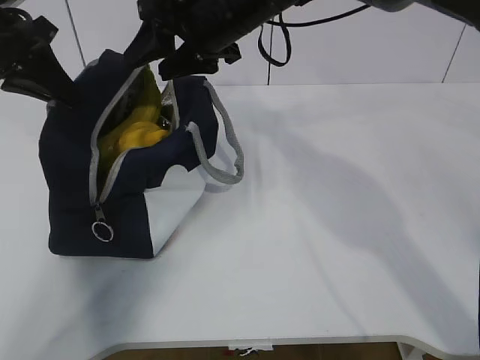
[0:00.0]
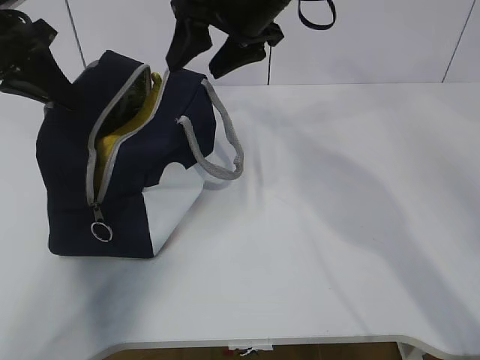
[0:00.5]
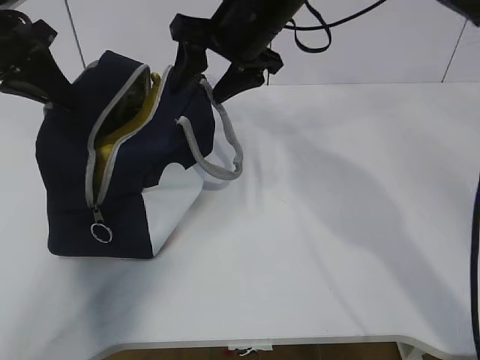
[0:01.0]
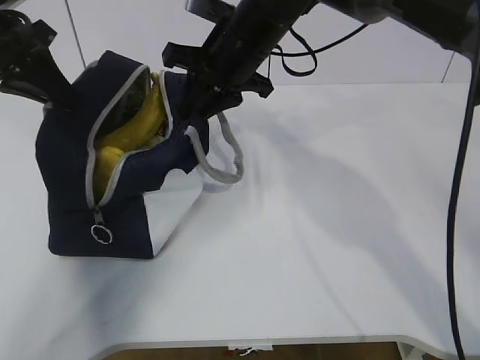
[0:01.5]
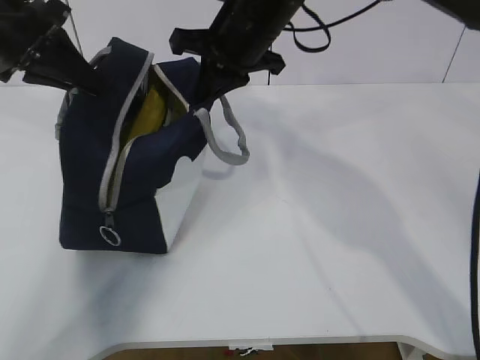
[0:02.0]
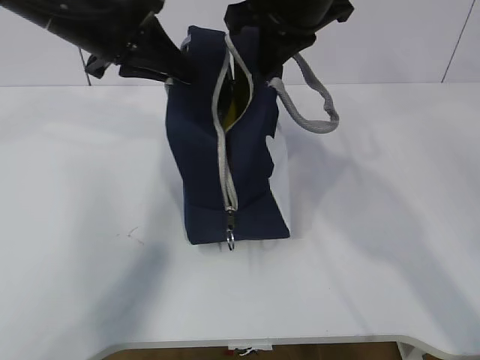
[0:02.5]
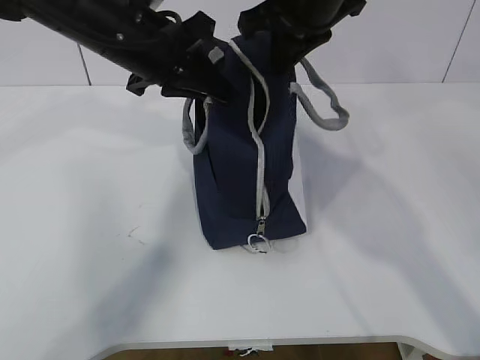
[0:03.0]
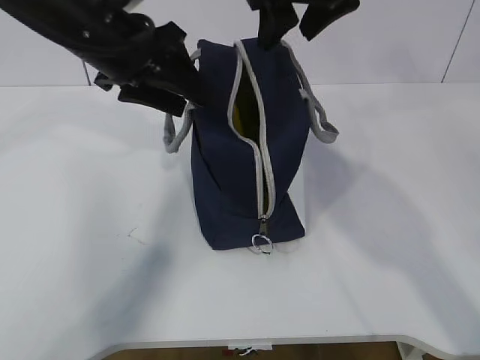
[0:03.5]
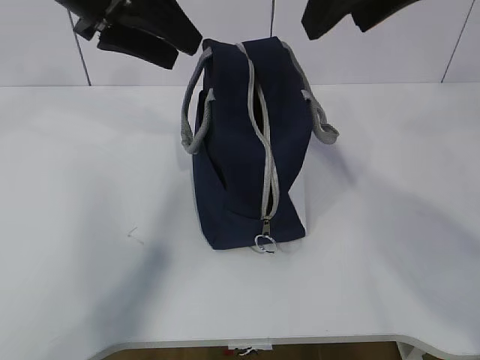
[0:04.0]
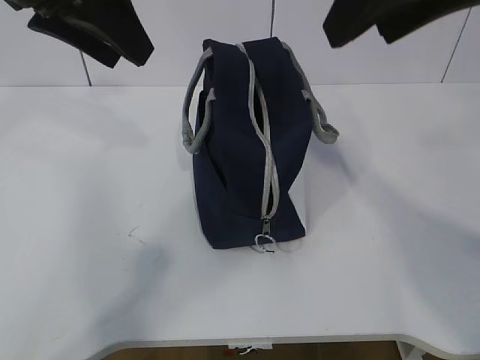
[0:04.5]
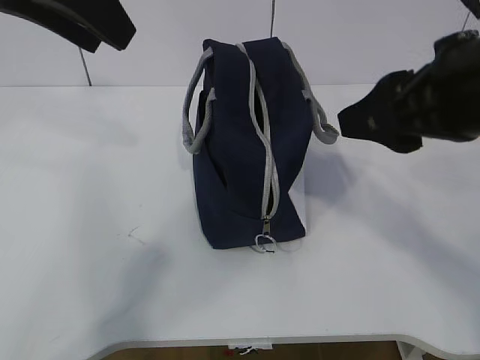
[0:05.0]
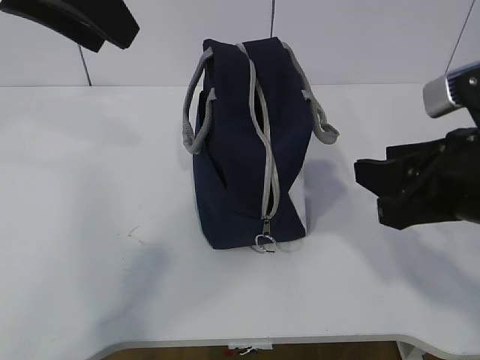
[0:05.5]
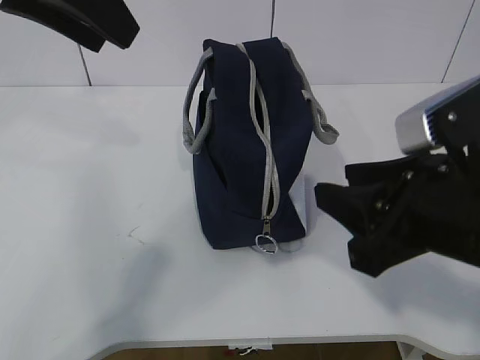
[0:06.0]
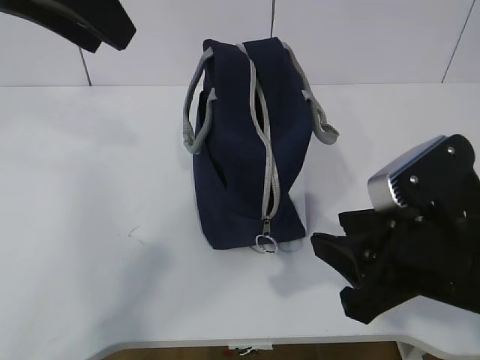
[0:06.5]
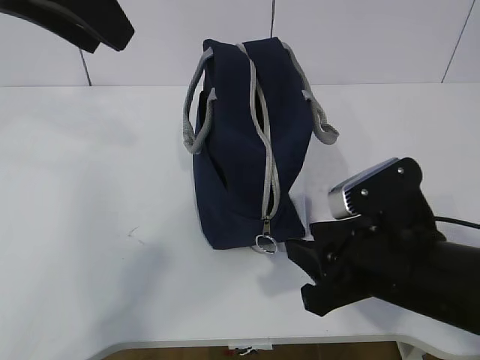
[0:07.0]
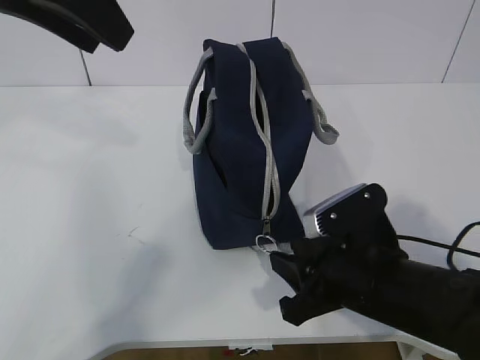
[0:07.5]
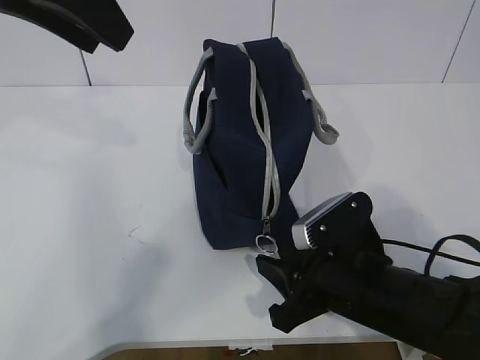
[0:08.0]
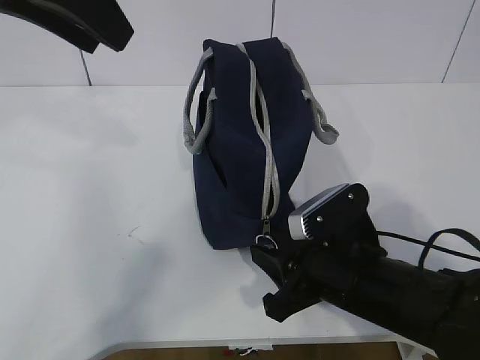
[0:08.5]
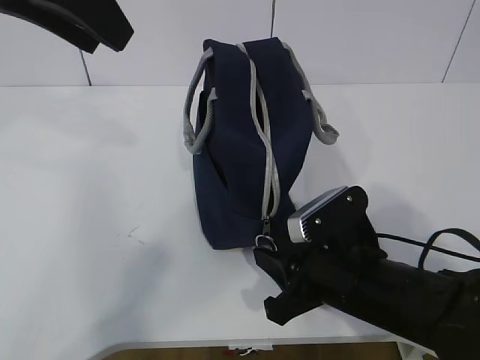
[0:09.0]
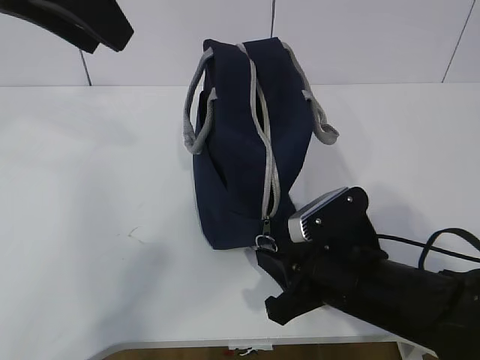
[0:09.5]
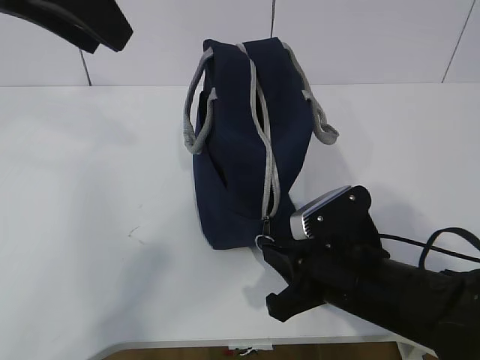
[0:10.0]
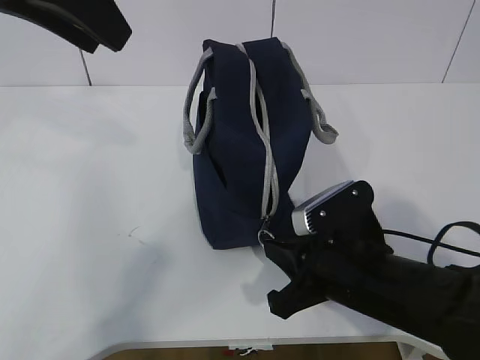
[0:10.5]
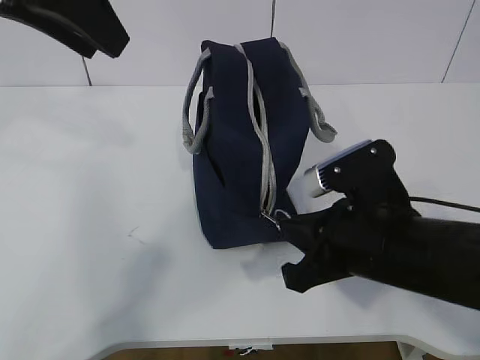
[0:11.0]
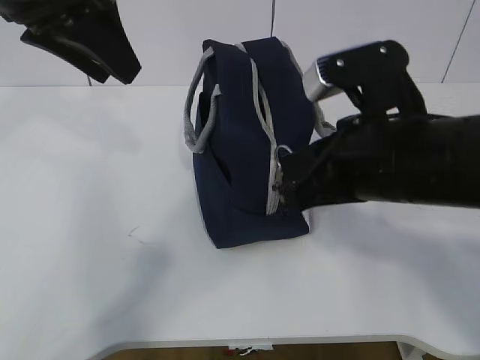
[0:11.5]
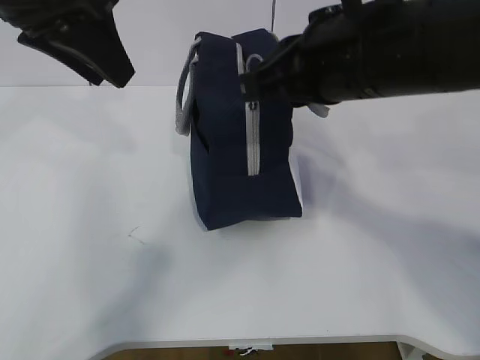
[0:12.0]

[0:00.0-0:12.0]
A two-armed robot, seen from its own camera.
Step, 0:00.0 to 0:09.0: Grab the lunch bag with your left hand.
0:00.0 to 0:02.0: The right gripper closes up.
0:02.0 to 0:04.0: The left gripper is displaced to the right by about 10 cm, and opens, while the right gripper heads backward, upward and to the right, covering roughly 20 cm, and opens up.
0:04.0 to 0:06.0: The left gripper shifts some 10 cm backward and upward. The right gripper shifts approximately 20 cm downward and backward.
0:06.0 to 0:08.0: The right gripper goes roughly 15 cm downward.
0:08.0 to 0:10.0: The right gripper closes up.
0:10.0 to 0:12.0: The right gripper is displaced upward by roughly 20 cm.

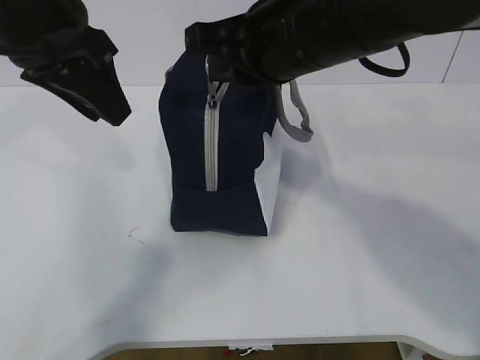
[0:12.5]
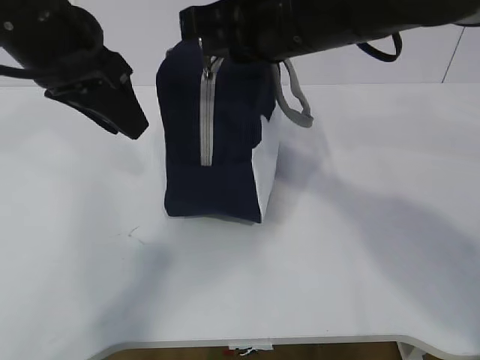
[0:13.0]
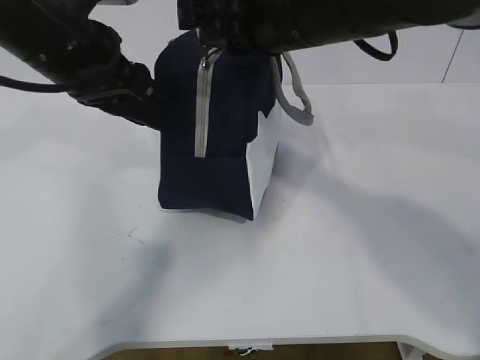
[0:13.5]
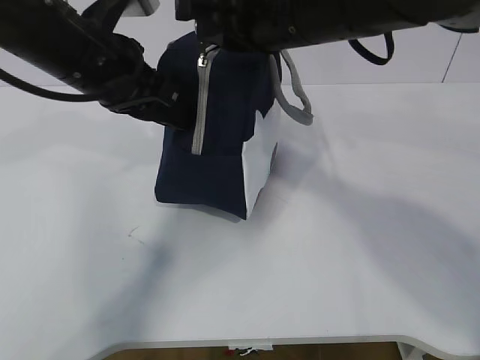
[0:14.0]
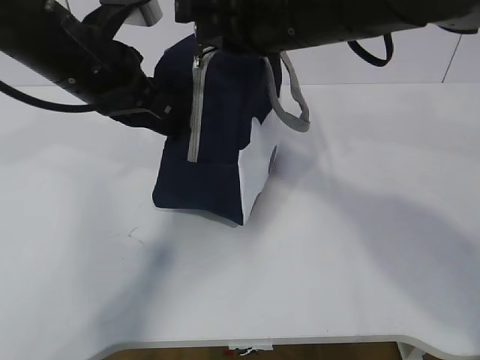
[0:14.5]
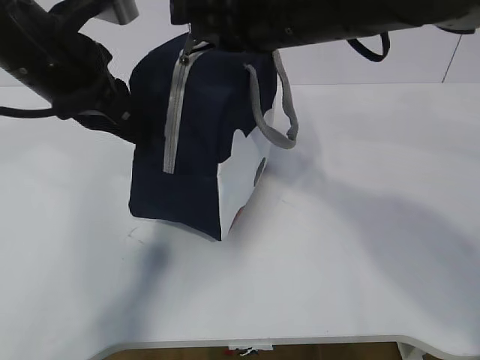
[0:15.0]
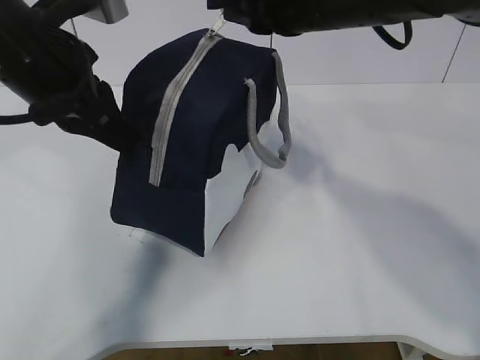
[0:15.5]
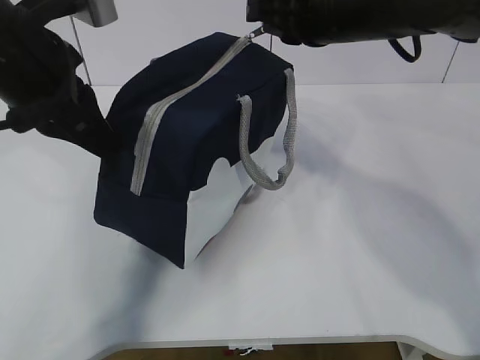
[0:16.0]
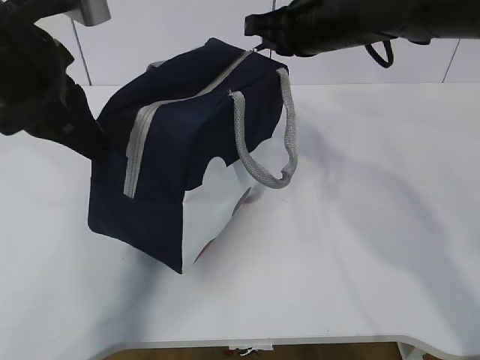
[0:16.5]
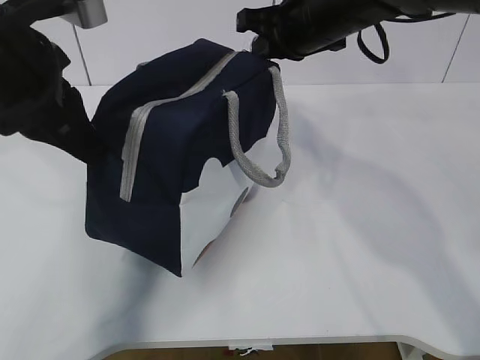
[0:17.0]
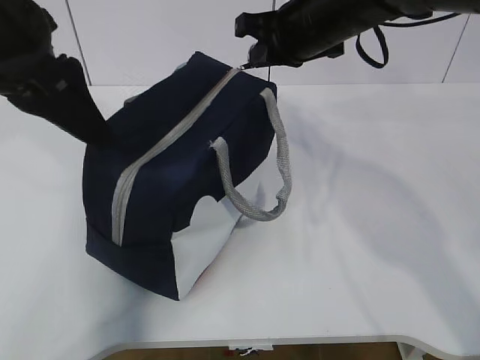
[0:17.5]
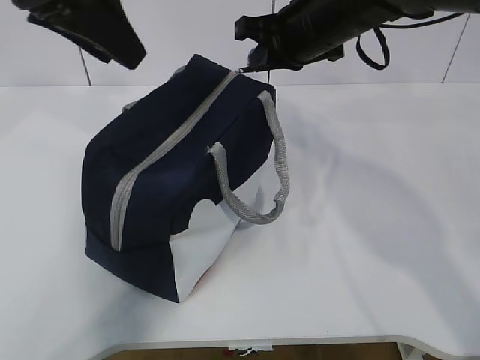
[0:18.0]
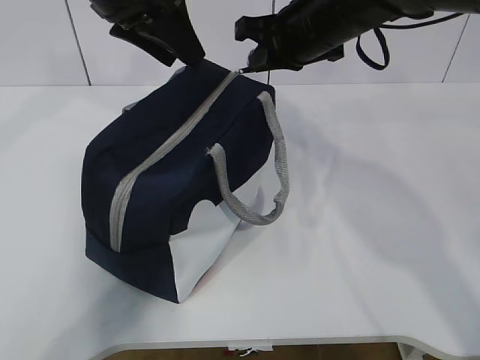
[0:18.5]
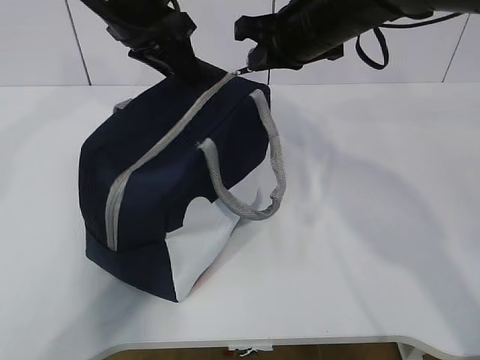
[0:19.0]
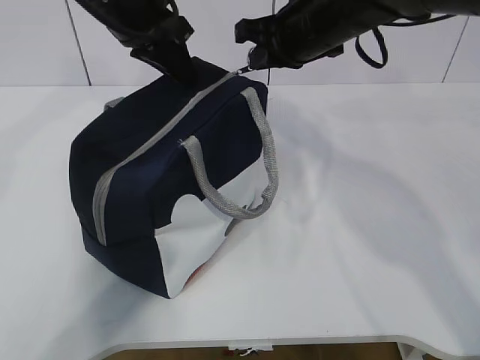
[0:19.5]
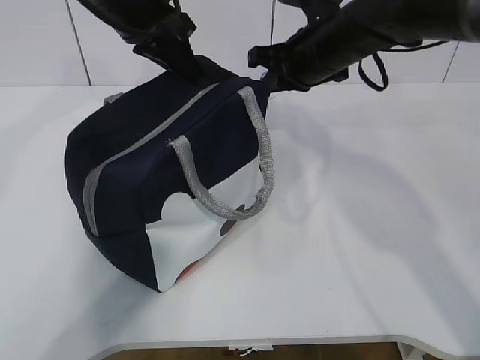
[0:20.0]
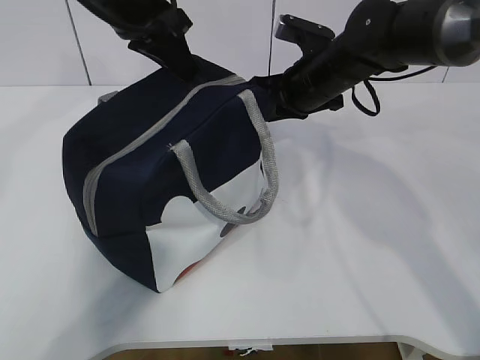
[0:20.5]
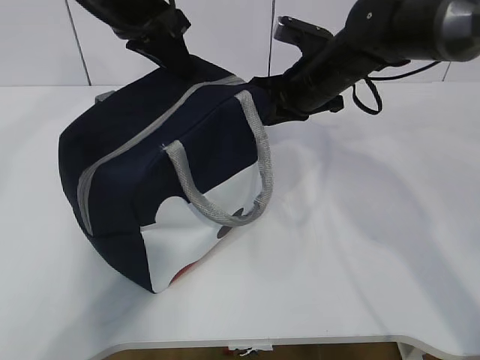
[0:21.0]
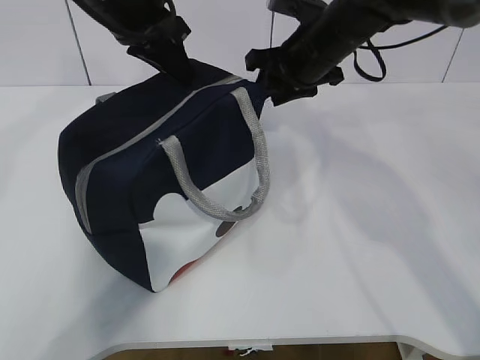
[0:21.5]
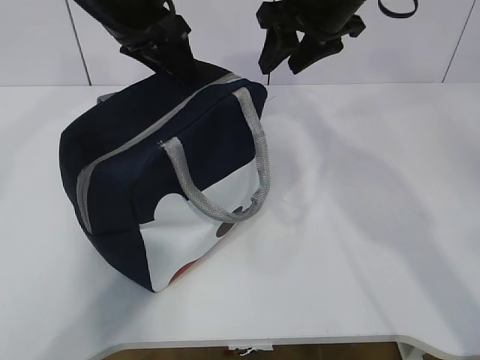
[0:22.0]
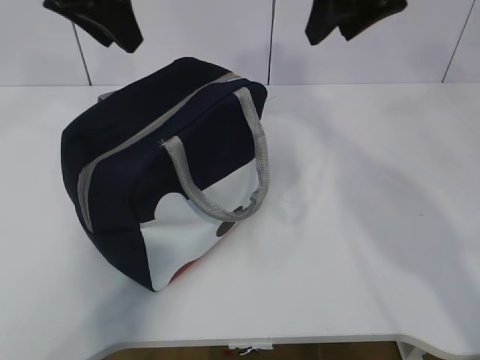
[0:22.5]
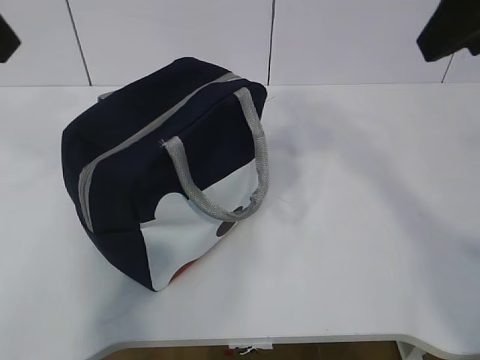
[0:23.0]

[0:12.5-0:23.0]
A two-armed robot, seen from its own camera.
0:12.5 to 0:14.5: The left gripper shifts about 5 cm downward, and closes.
0:14.5 to 0:16.5: The left gripper ends up some 5 cm from where it was. Meanwhile the right gripper heads forward, to the right and downward, covering about 15 cm.
0:16.5 to 0:19.0: The left gripper is displaced forward and to the right by roughly 15 cm, and opens.
0:19.0 to 0:21.0: The right gripper moves downward, about 10 cm. Meanwhile the left gripper closes its fingers.
0:21.0 to 0:23.0: The left gripper is displaced backward, to the left and upward by some 20 cm, and opens up; the right gripper moves backward and upward, approximately 30 cm, and opens its fingers.

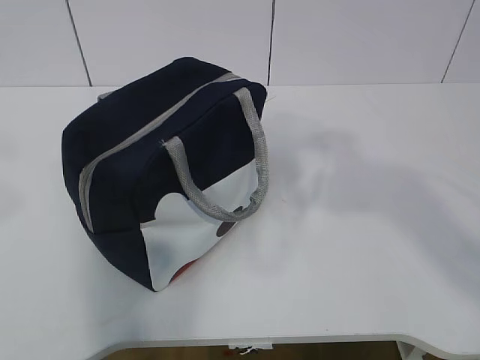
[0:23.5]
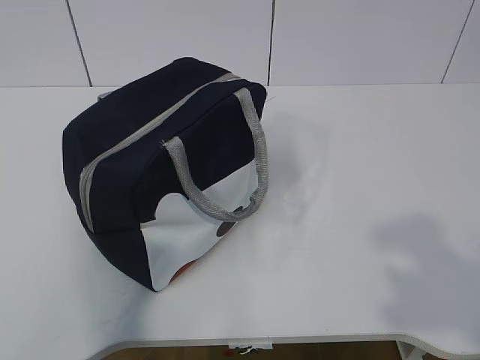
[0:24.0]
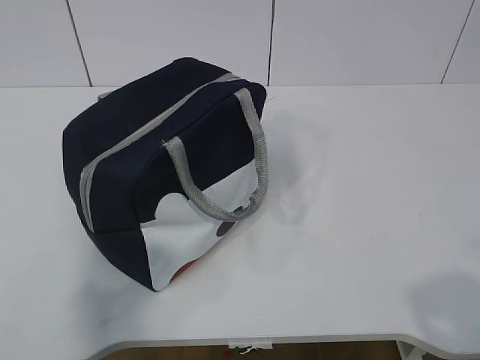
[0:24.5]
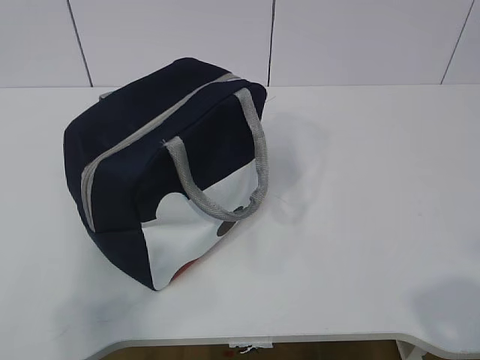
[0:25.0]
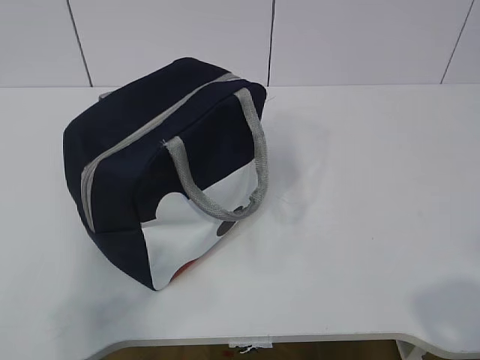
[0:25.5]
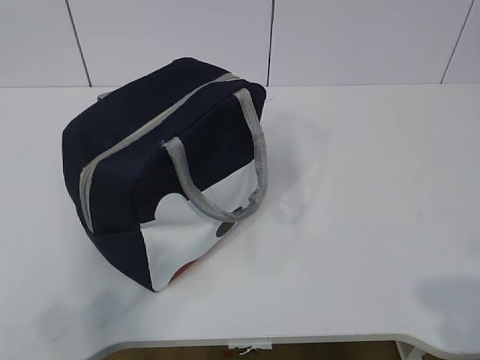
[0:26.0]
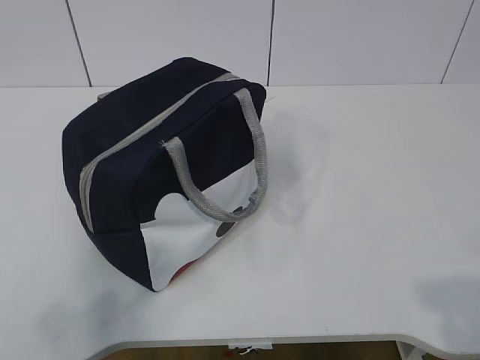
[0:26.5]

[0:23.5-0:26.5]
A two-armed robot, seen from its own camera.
0:23.5 to 0:25.0: The left gripper is displaced backward and downward by some 20 cm, while the right gripper goes some 20 cm downward and backward.
0:25.0 to 0:26.5: The grippers stay close to where they were, moving slightly.
